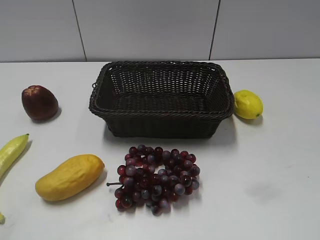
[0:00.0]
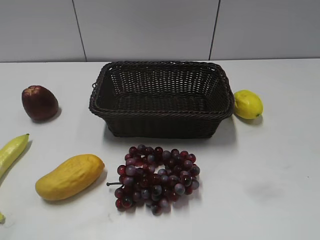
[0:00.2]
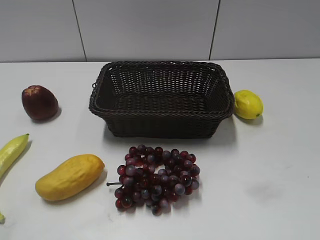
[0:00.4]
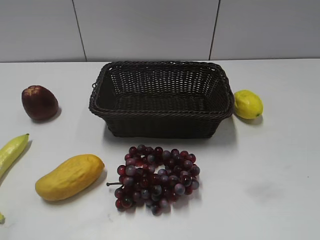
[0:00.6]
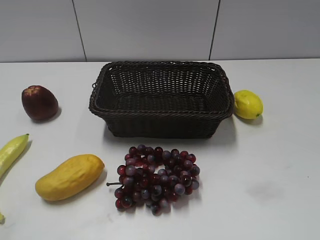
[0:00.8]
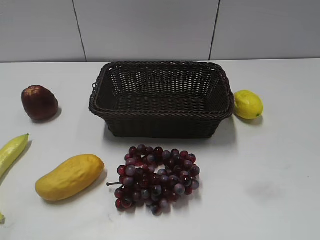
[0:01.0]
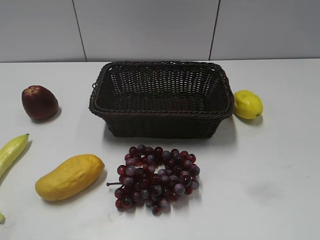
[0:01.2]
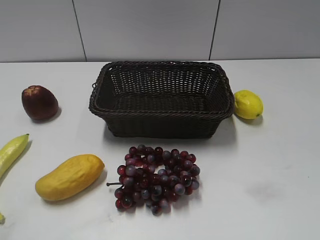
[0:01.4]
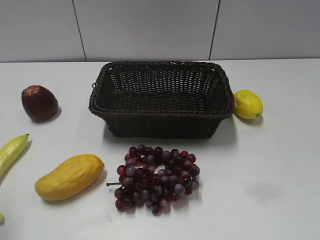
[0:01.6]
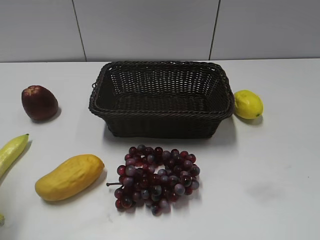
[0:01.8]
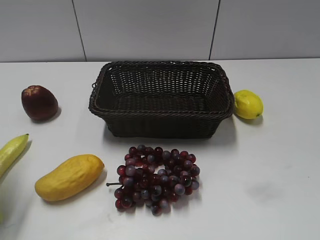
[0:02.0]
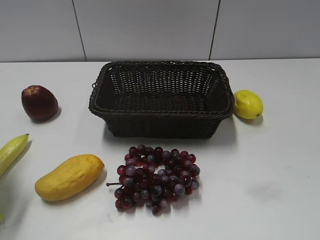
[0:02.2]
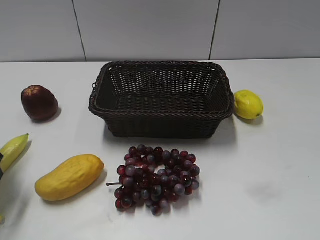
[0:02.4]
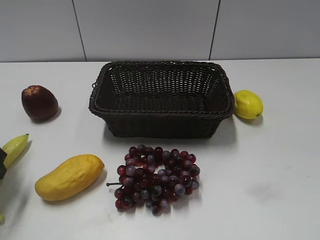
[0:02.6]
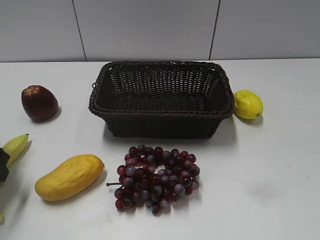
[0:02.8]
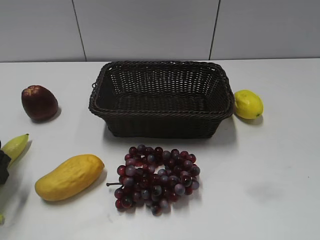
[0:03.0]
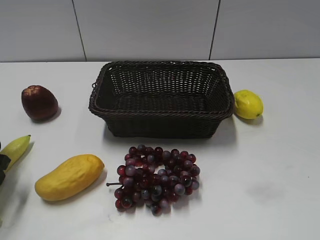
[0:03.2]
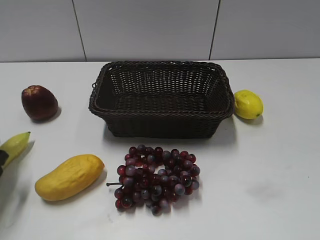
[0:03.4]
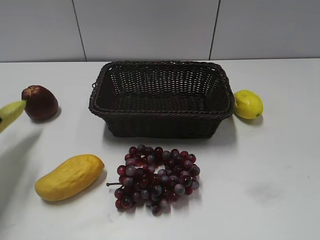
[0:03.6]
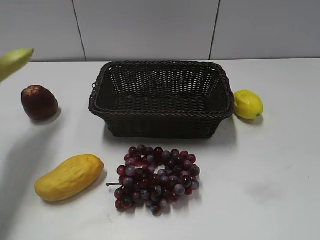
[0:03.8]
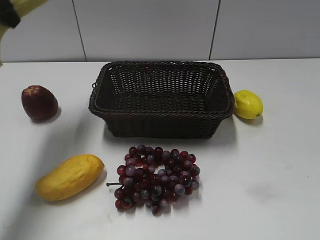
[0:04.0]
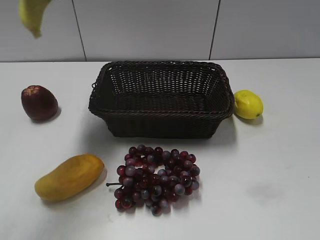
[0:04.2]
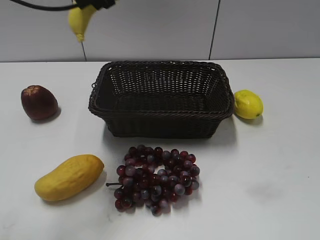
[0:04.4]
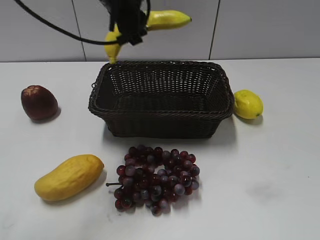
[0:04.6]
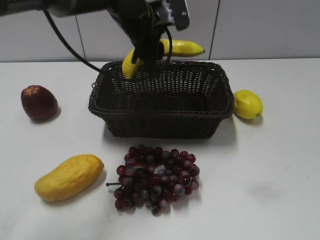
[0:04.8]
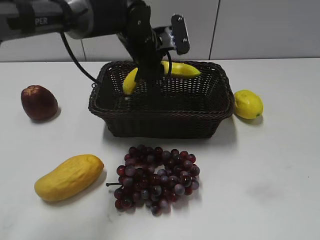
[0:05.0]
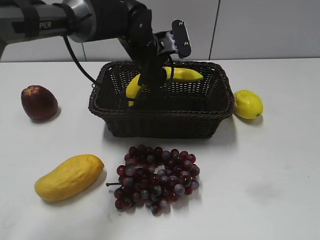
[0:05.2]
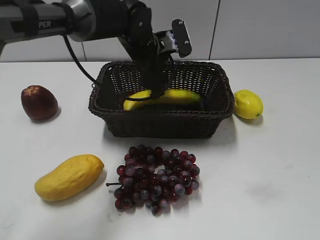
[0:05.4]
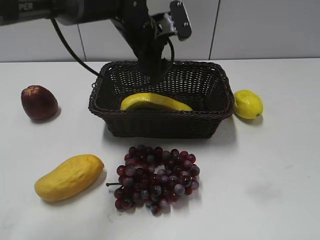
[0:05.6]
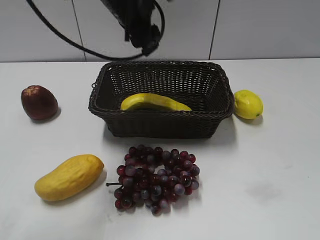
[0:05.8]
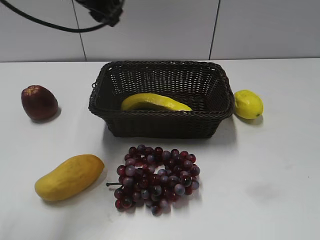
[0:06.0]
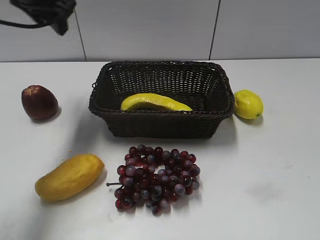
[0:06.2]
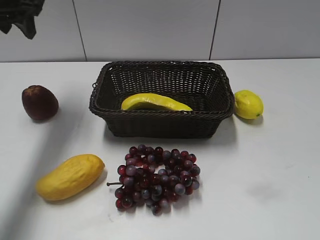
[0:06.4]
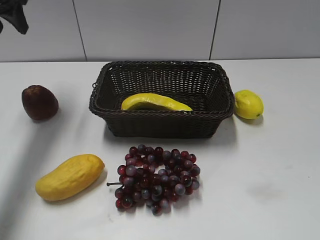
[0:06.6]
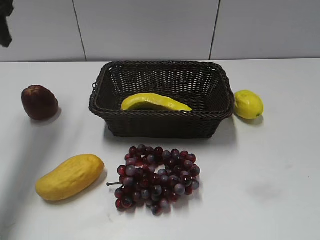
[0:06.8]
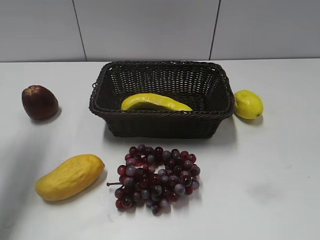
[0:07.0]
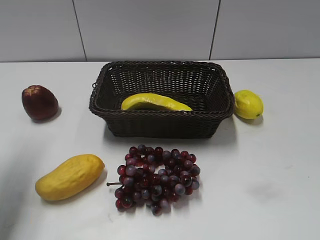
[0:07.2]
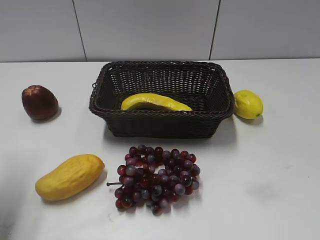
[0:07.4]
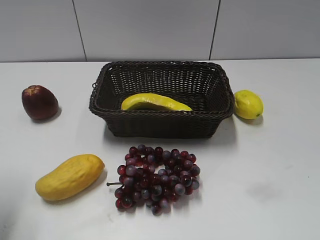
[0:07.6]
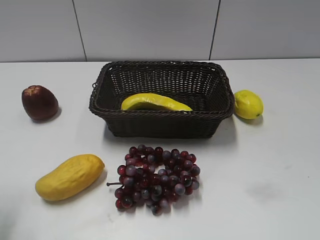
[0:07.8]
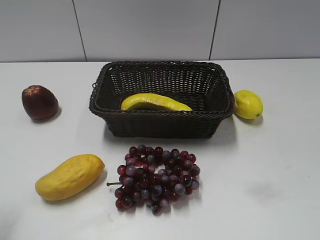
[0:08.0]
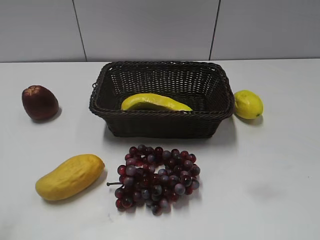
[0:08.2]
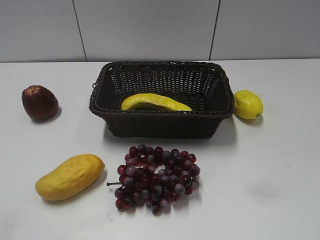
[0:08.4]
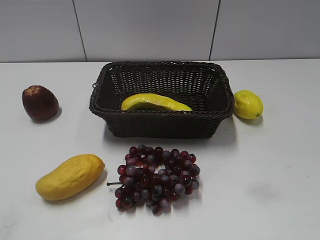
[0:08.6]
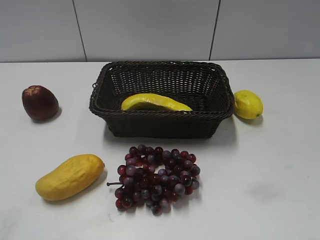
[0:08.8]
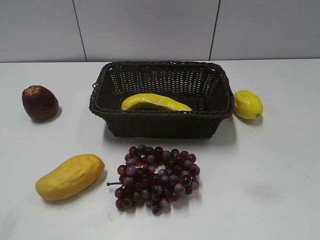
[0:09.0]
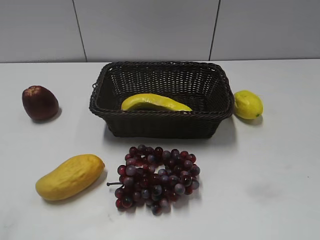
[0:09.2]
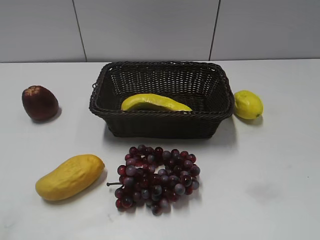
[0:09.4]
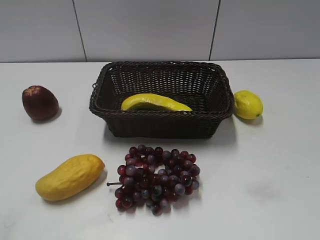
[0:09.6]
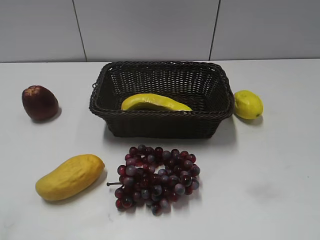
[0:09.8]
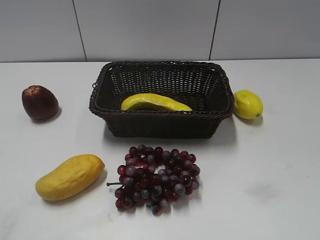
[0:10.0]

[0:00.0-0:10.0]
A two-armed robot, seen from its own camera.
Step, 0:03.4 to 0:05.6: Place the banana in the basket with left gripper.
0:01.4 to 0:02.8: The left gripper travels downward and forward by approximately 25 cm, and opens its fingers.
0:02.8 to 0:04.2: The left gripper heads upward, to the right and forward, covering some 30 cm, and closes.
0:04.2 to 0:05.8: The left gripper moves to the right and downward, some 15 cm, and opens.
0:05.8 to 0:07.2: The left gripper heads to the left and backward, covering some 30 cm.
0:07.2 to 0:08.6: The left gripper travels backward by some 25 cm.

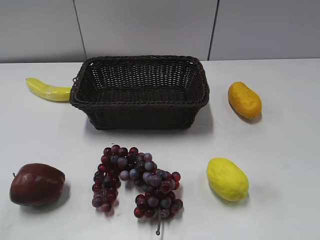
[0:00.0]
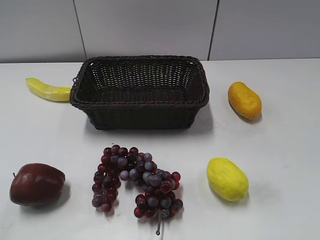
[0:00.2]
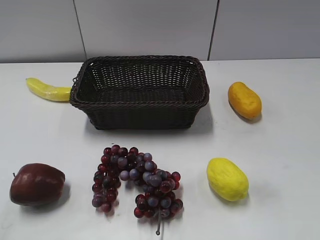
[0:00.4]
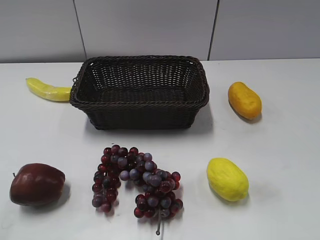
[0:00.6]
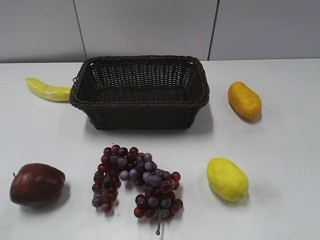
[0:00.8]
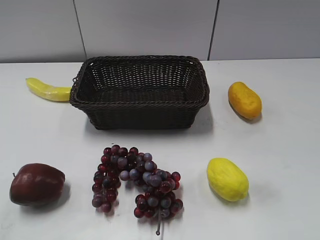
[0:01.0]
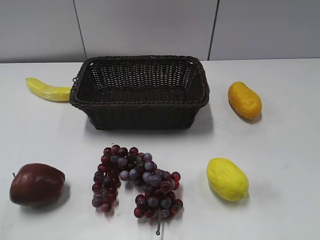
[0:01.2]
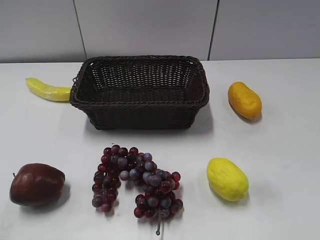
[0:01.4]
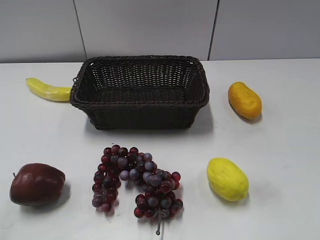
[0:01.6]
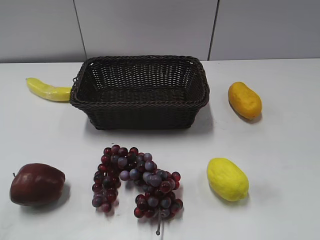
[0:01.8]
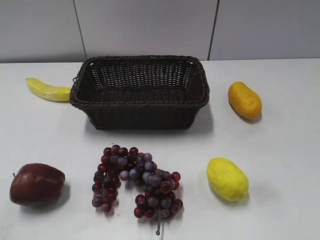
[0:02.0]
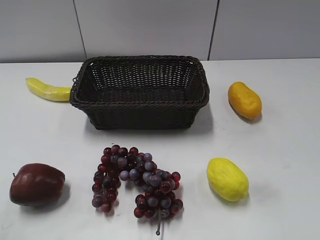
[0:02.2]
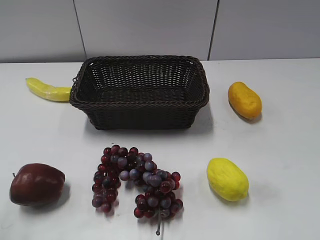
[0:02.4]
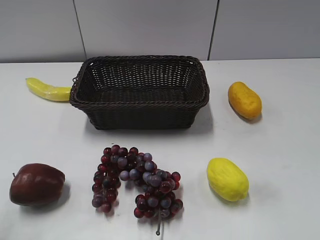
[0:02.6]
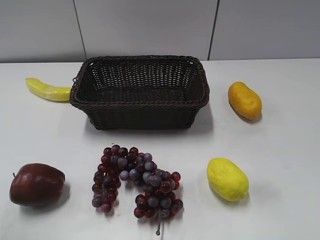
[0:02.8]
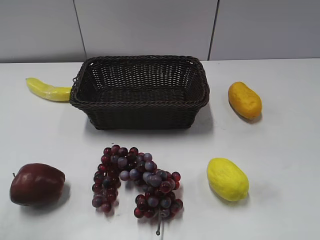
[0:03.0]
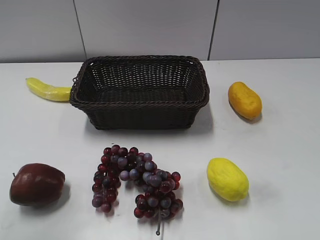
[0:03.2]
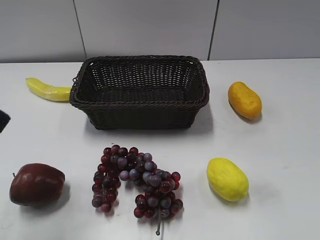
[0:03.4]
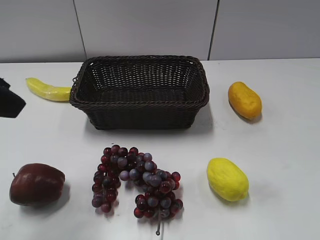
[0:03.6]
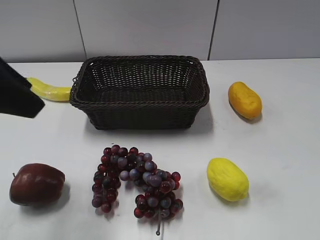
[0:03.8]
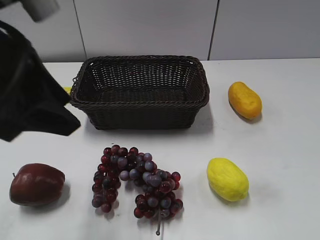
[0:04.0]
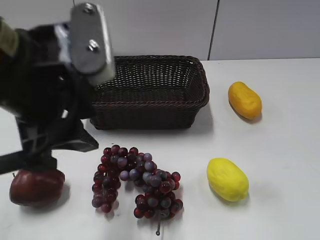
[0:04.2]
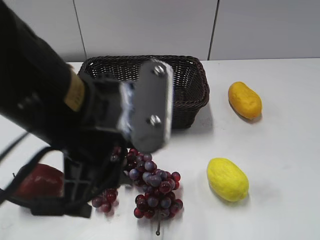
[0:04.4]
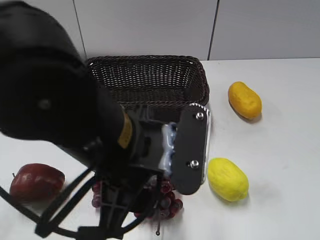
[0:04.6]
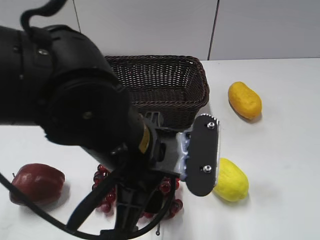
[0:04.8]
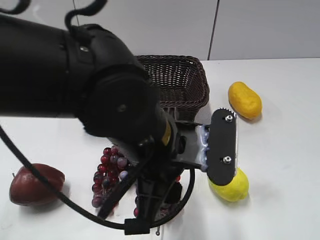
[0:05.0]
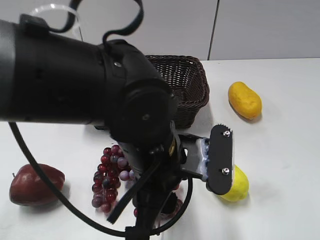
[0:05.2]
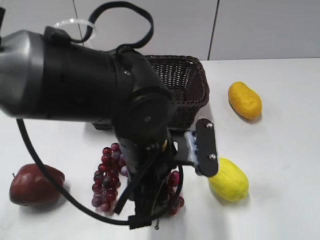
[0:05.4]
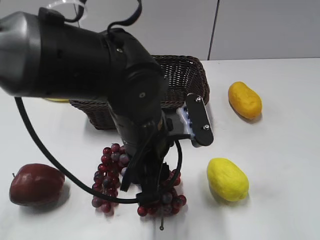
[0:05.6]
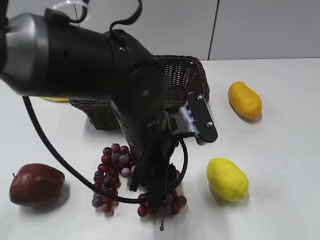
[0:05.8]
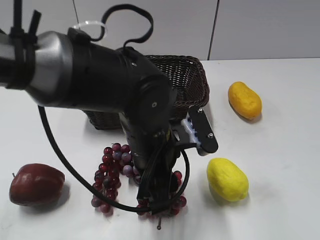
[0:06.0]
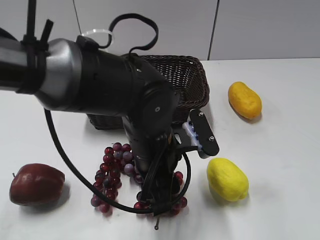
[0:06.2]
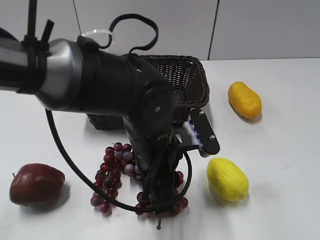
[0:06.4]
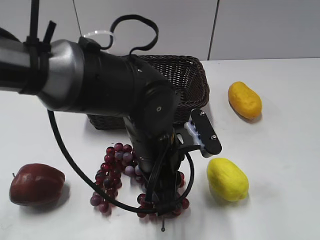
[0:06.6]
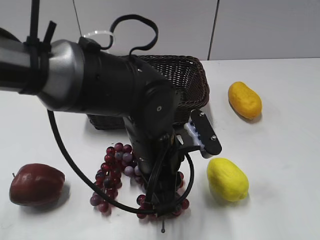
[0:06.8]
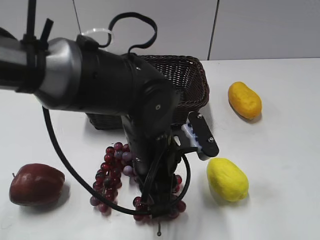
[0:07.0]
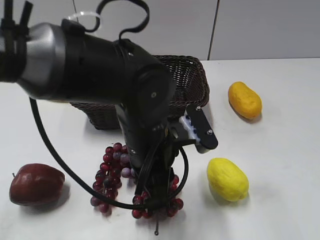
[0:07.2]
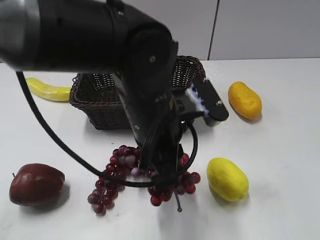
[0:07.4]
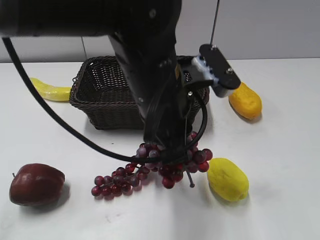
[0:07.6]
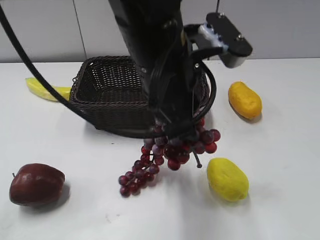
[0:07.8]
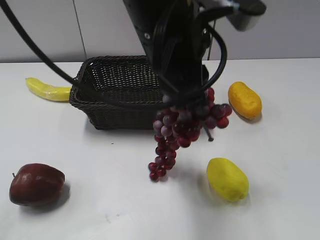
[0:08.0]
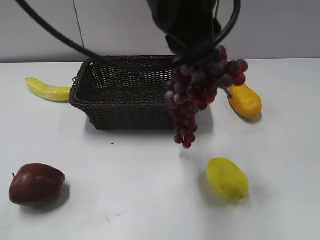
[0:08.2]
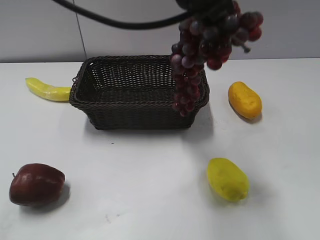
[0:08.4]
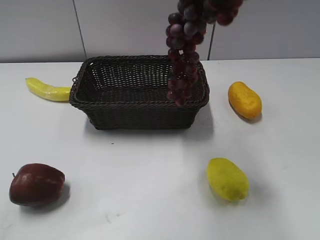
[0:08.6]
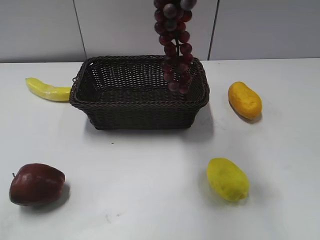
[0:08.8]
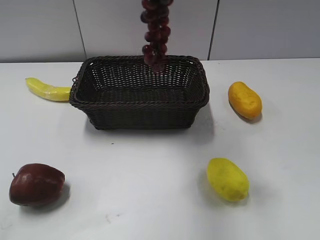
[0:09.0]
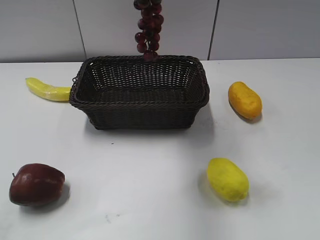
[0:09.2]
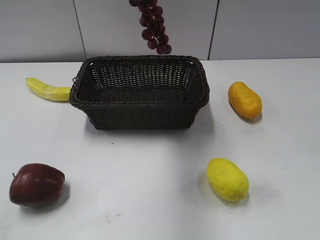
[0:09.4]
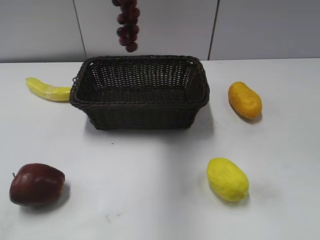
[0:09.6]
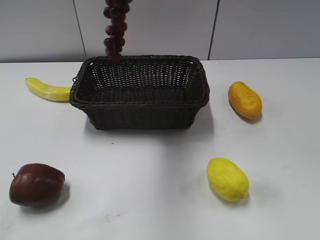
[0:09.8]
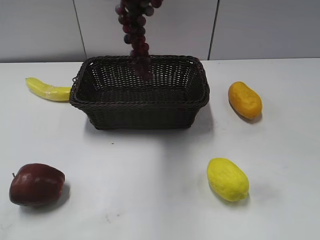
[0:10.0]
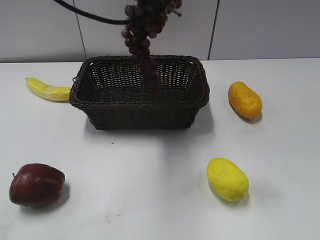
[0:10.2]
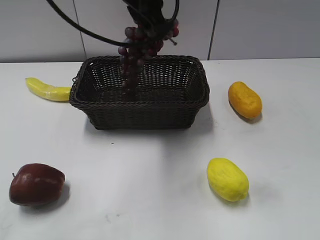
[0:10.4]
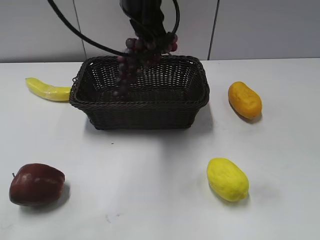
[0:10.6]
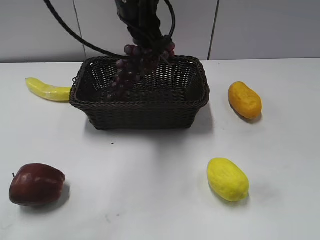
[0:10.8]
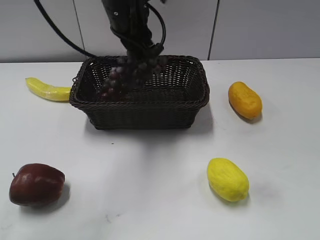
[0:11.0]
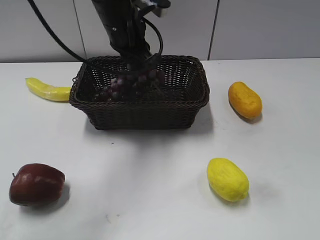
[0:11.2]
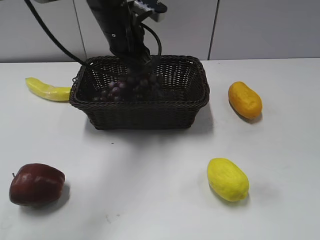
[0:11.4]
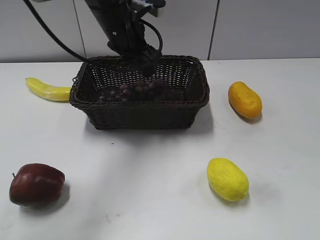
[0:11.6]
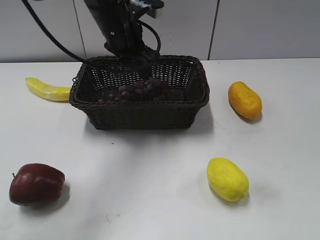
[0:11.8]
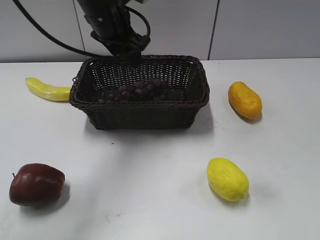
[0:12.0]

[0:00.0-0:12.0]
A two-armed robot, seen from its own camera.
Step, 0:03.4 to 0:06.4: Grasp the grape with left gripper.
Step, 0:06.8 to 0:11.4: Place the grape in the basket with left gripper.
0:03.0 to 0:04.4: The left gripper heads to the right, covering some 20 cm.
0:04.4 to 0:06.0: The left gripper moves downward, to the right and forward, some 15 cm.
0:06.0 to 0:07.6: The left gripper goes approximately 10 cm upward, and closes.
0:07.6 to 0:09.0: The left gripper travels upward by roughly 20 cm.
0:09.0 to 0:10.4: The left gripper shifts some 20 cm downward and forward.
0:10.4 to 0:12.0: The left gripper travels to the left and downward by some 10 cm, and opens its fingers.
